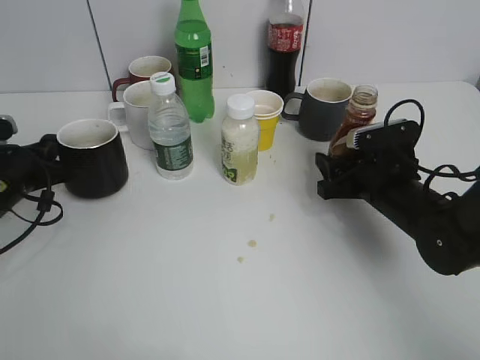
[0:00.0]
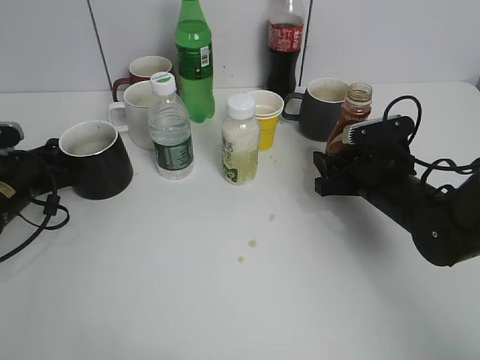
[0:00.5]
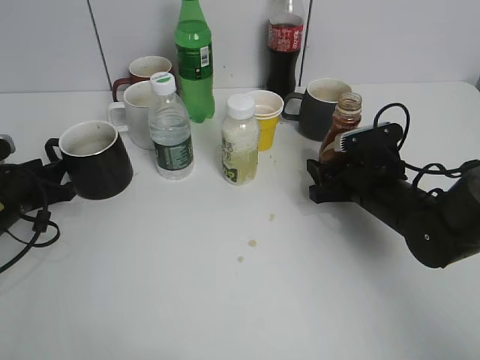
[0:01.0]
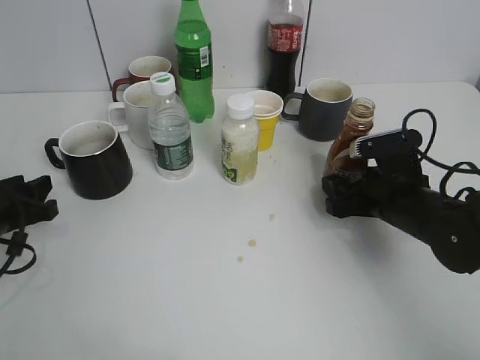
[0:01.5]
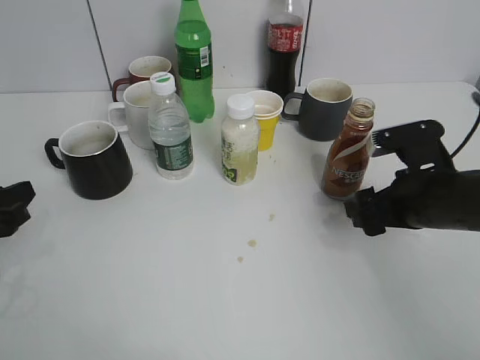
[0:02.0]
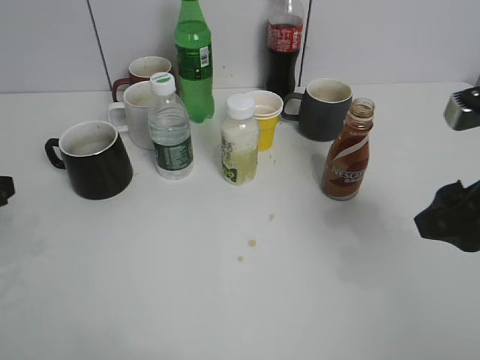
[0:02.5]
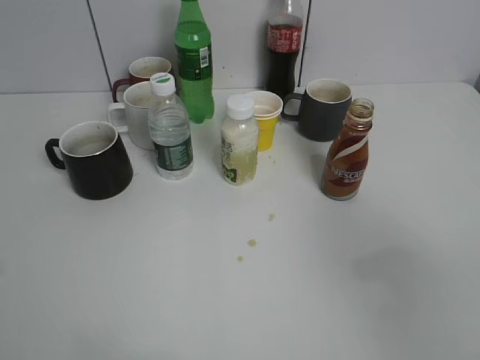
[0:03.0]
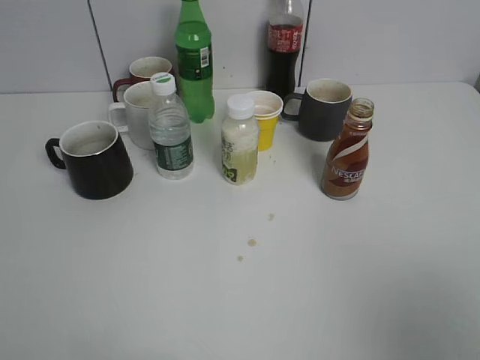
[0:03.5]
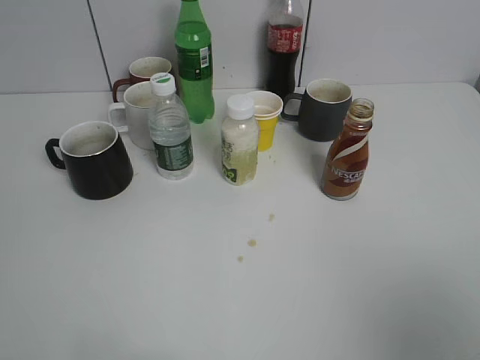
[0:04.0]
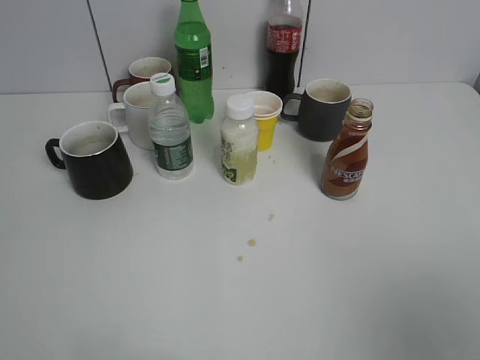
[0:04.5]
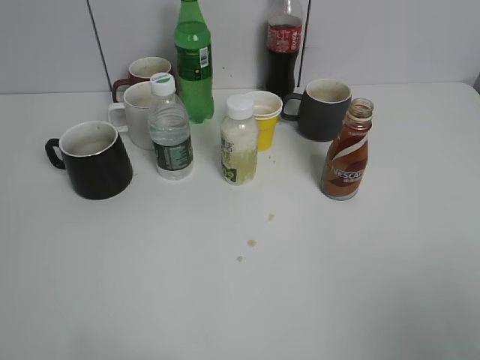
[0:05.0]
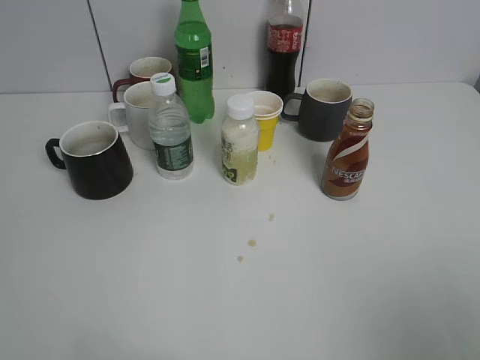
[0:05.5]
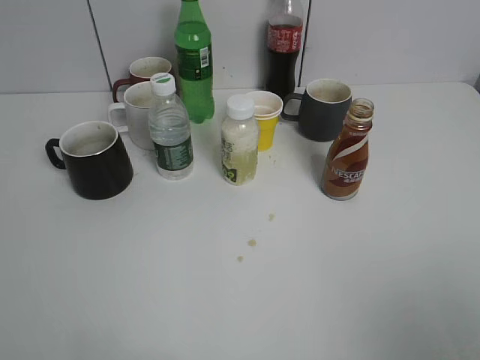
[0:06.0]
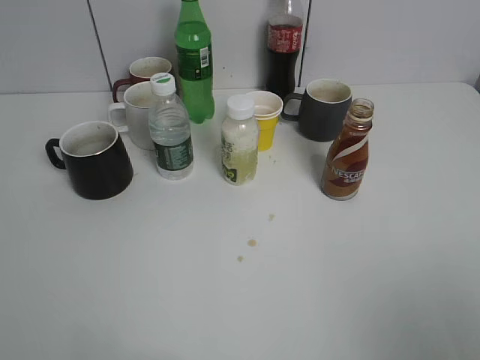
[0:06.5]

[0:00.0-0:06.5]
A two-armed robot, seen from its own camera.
Step, 0:00.0 to 0:01.5: Place the coffee bottle on the table with right gripper.
0:00.0 to 0:02.0: The left gripper shifts some 10 cm backward, and opens up. The right gripper changes place by some 5 cm, and opens up.
0:02.0 to 0:04.5: Both grippers travel together backward and upward, about 30 cm.

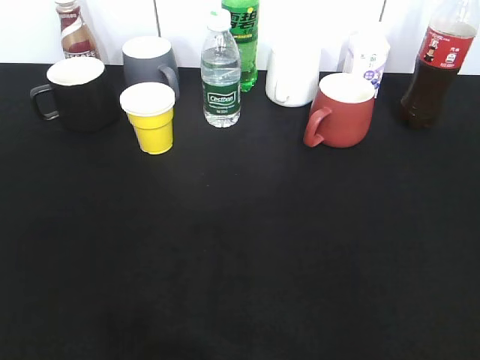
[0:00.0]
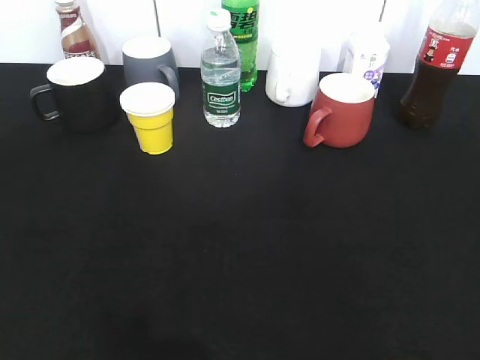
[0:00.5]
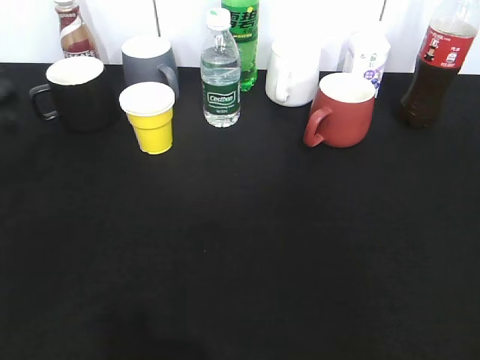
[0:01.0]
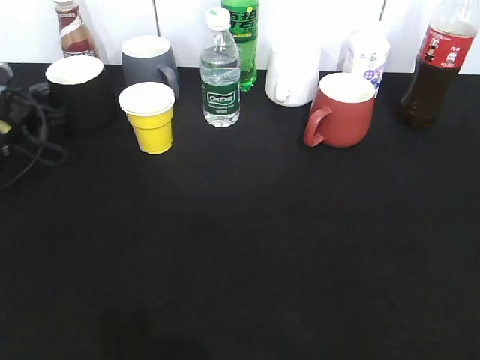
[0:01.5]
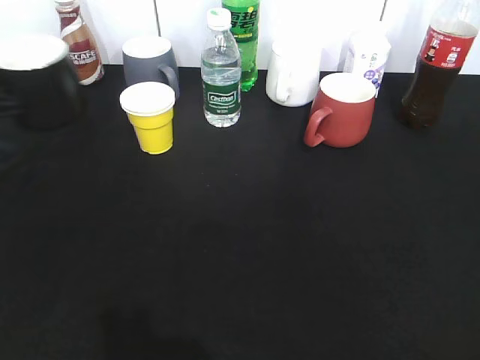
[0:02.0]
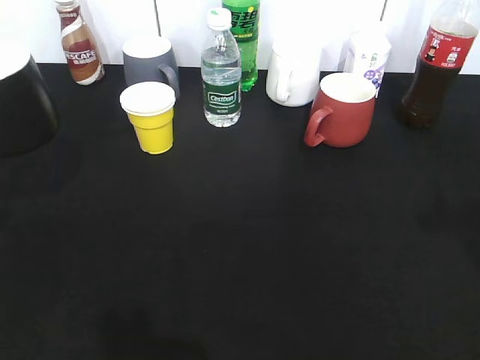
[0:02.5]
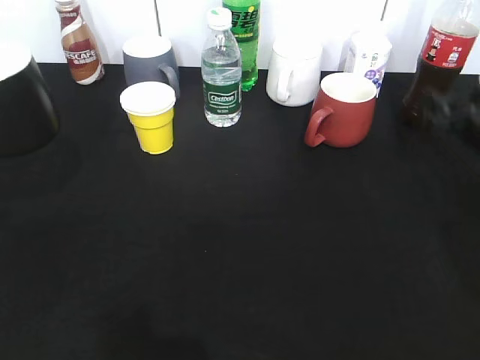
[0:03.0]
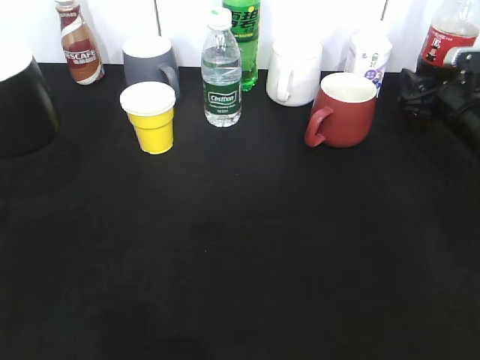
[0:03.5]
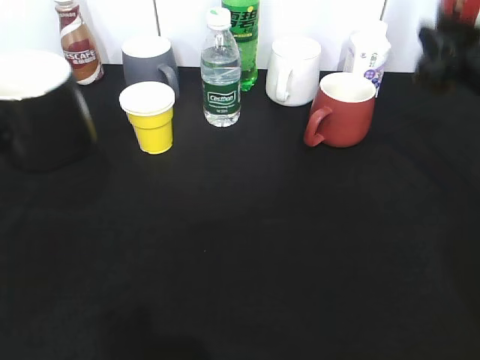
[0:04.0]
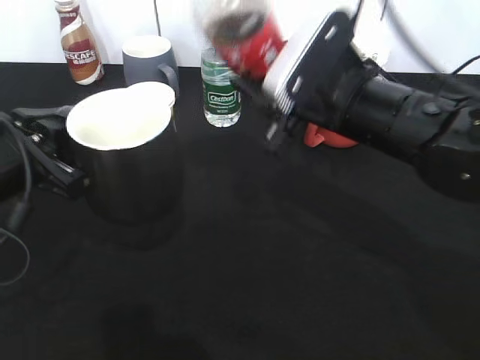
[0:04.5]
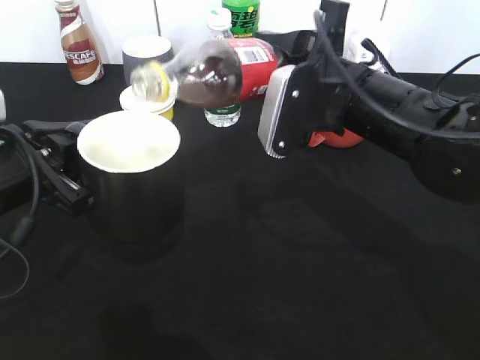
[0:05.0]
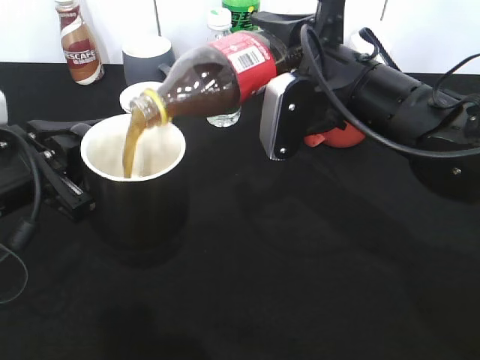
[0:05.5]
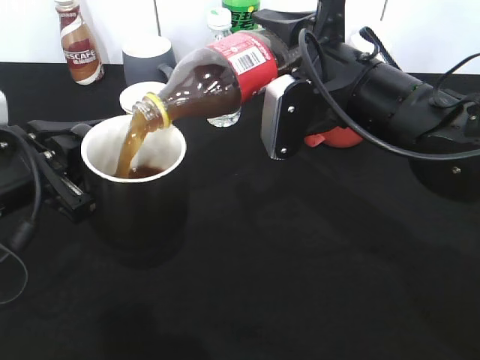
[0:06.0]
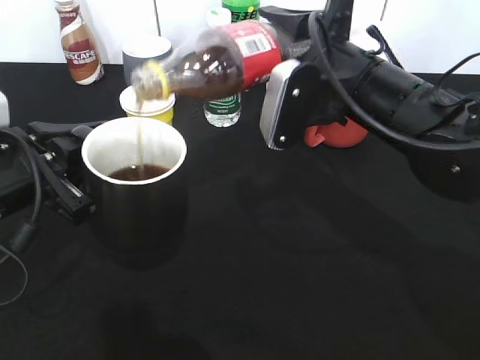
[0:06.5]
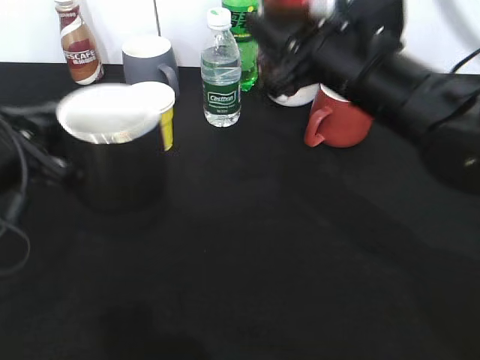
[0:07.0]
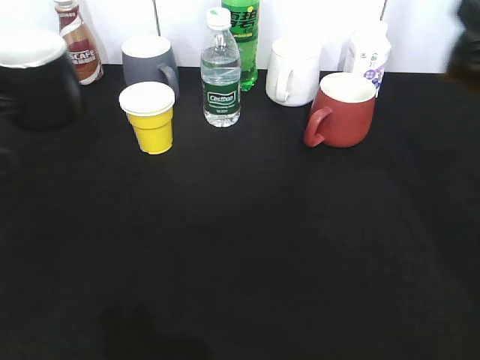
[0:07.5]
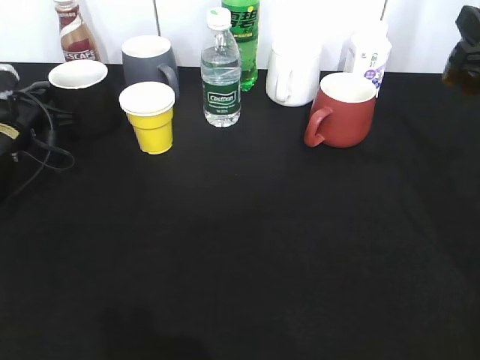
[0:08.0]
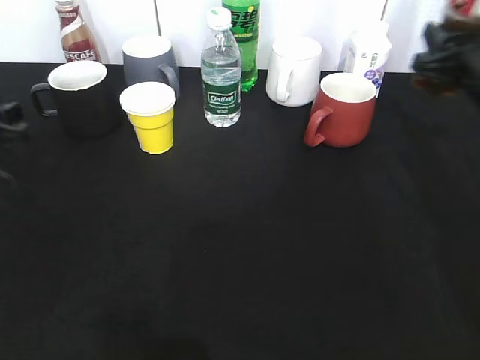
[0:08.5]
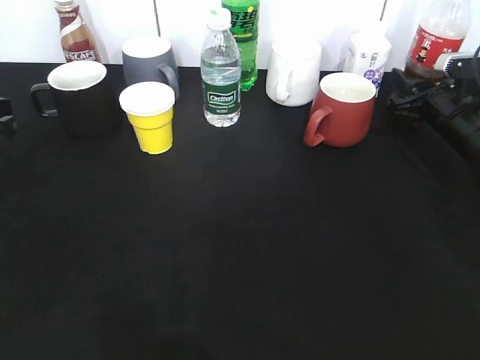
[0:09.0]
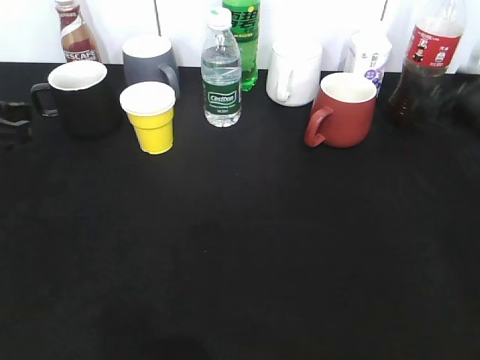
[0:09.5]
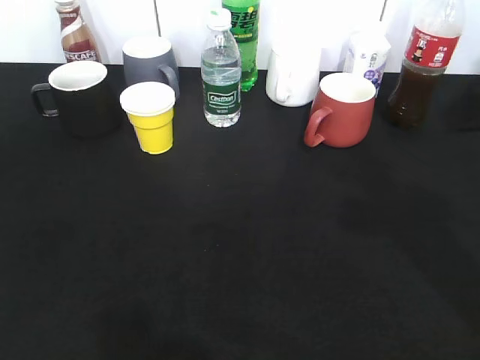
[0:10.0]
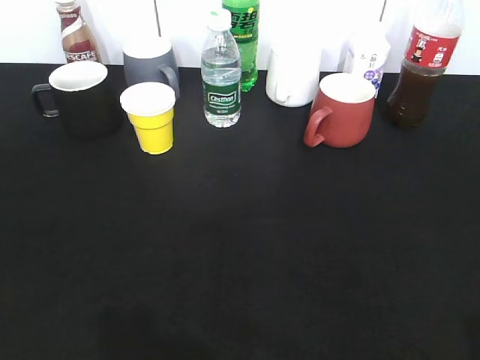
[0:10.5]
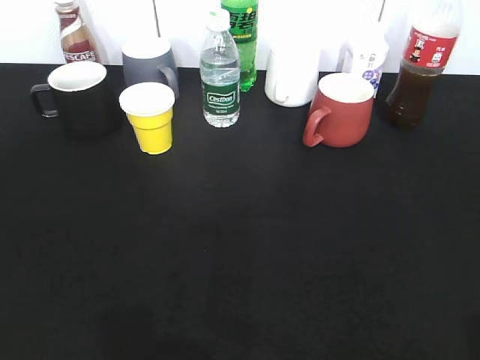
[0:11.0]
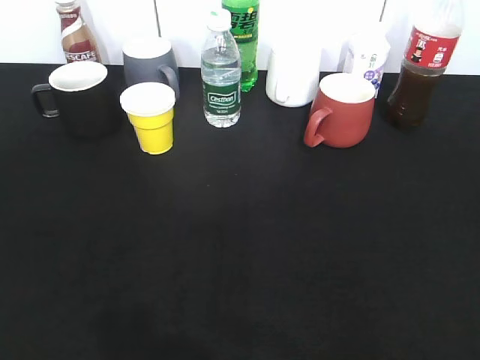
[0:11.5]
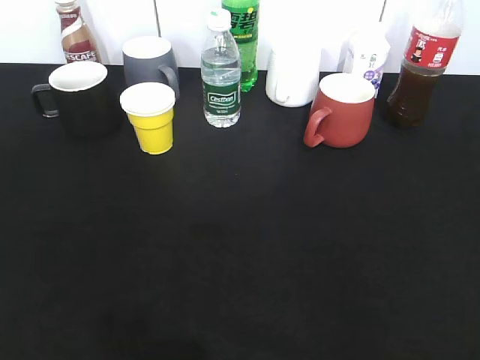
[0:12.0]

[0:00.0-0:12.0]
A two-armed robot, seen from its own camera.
Step, 0:04.0 to 0:06.5: Pour the cola from bottle to cup with right gripper.
Step, 0:07.0 to 0:08.5: Place the black cup on the table with left gripper.
Step, 0:09.0 to 0:09.5: Place the cola bottle on the table with right gripper.
0:00.0 to 0:02.0: The left gripper heads forward, covering about 30 cm, and closes its fingers.
0:02.0 to 0:04.0: The right gripper shifts approximately 35 cm forward, and closes its fingers. The left gripper shifts some 10 cm backward.
0:04.0 to 0:06.0: The left gripper shifts approximately 10 cm to the right; the right gripper goes roughly 15 cm to the left.
0:06.0 to 0:08.0: The right gripper moves to the right, about 15 cm. The left gripper shifts some 25 cm forward, downward and to the left.
0:08.0 to 0:10.0: The right gripper is displaced backward and upward by approximately 15 cm, and opens; the left gripper heads backward and upward, covering roughly 35 cm, and opens up.
0:10.0 to 0:12.0: The left gripper shifts approximately 10 cm backward, and closes. The right gripper goes approximately 20 cm backward and to the right.
